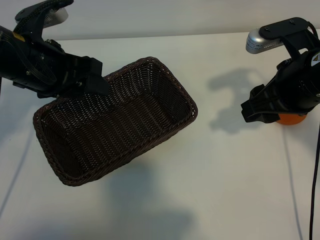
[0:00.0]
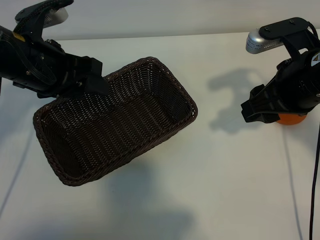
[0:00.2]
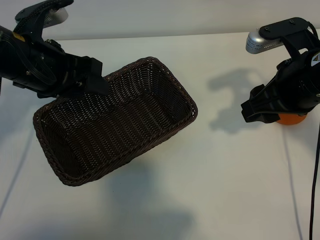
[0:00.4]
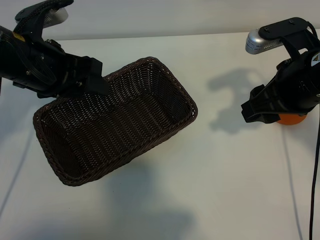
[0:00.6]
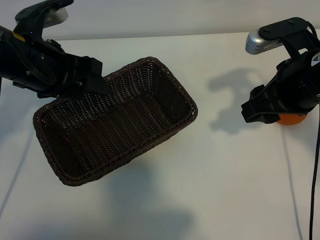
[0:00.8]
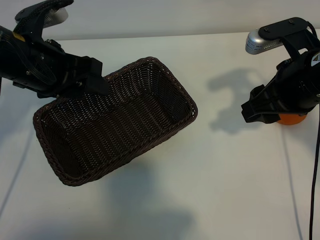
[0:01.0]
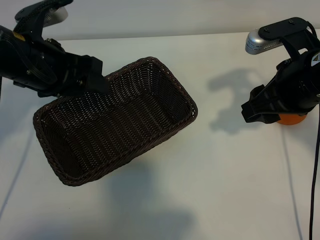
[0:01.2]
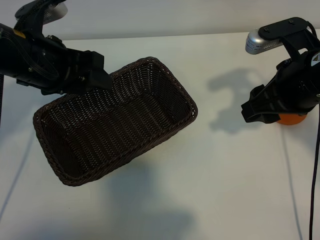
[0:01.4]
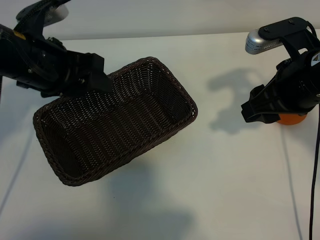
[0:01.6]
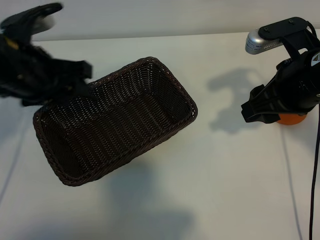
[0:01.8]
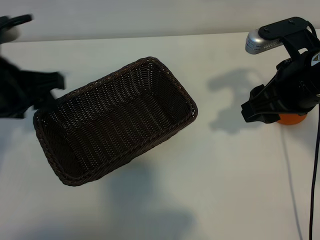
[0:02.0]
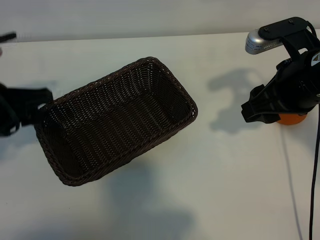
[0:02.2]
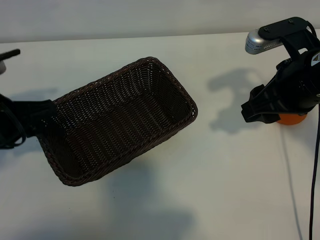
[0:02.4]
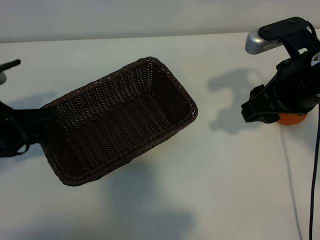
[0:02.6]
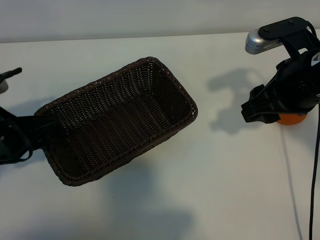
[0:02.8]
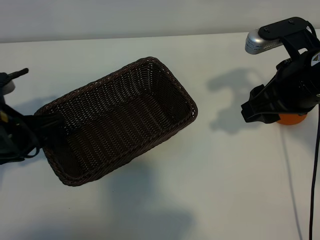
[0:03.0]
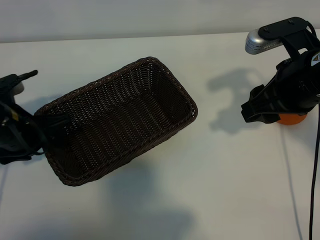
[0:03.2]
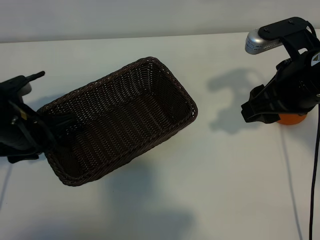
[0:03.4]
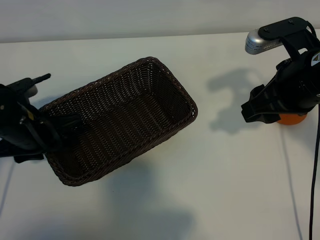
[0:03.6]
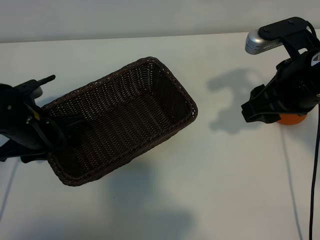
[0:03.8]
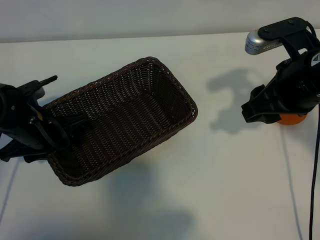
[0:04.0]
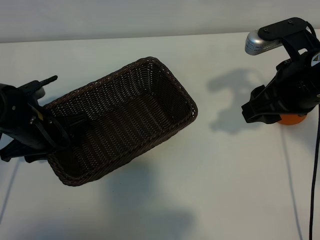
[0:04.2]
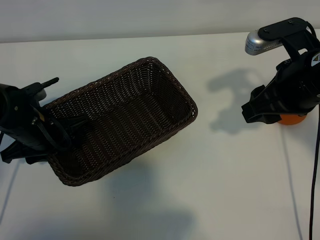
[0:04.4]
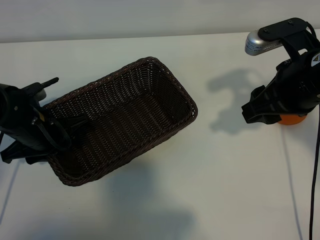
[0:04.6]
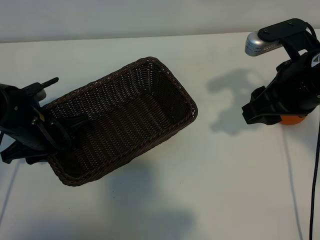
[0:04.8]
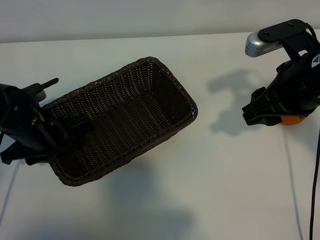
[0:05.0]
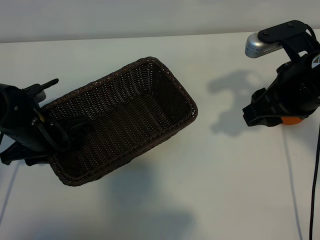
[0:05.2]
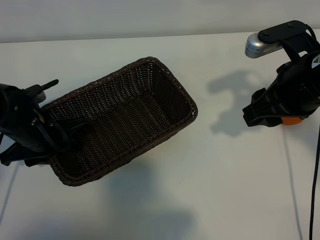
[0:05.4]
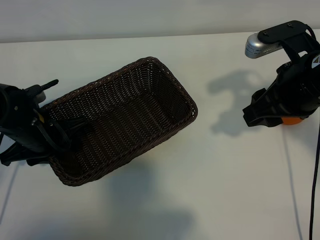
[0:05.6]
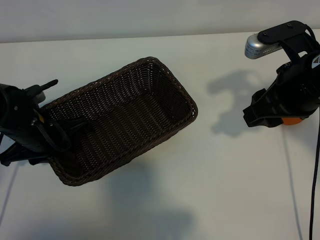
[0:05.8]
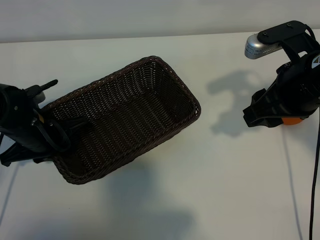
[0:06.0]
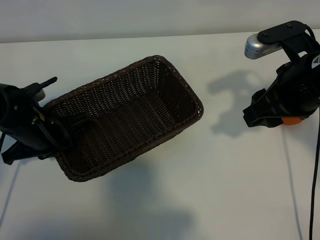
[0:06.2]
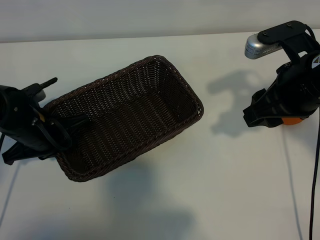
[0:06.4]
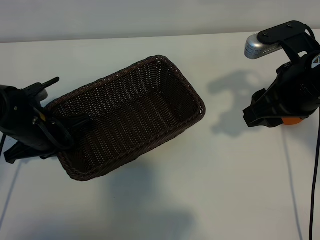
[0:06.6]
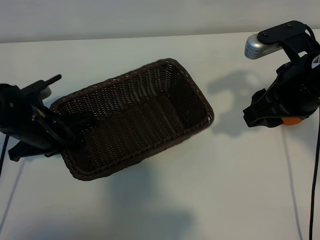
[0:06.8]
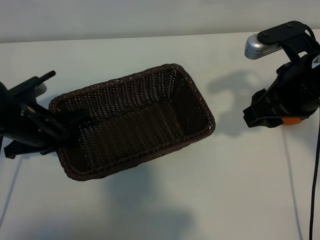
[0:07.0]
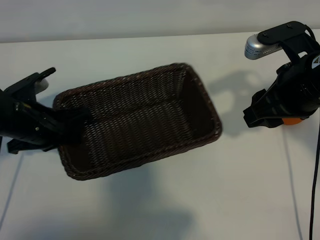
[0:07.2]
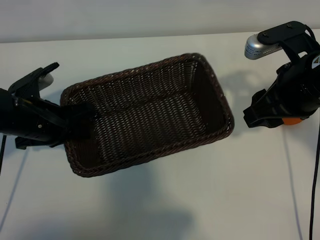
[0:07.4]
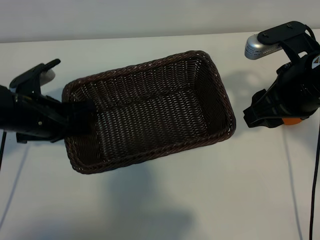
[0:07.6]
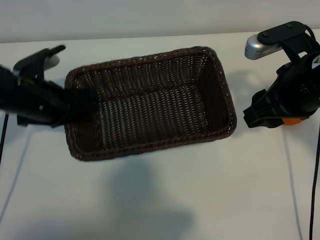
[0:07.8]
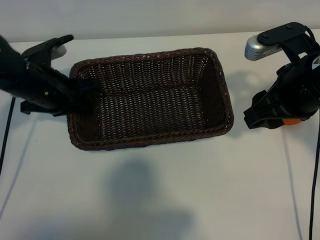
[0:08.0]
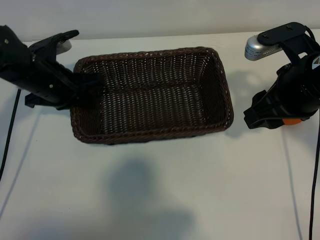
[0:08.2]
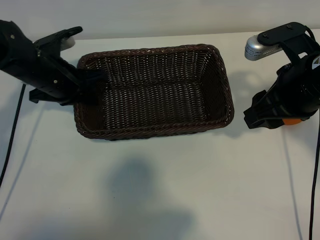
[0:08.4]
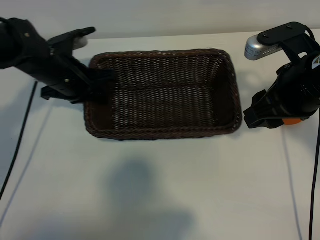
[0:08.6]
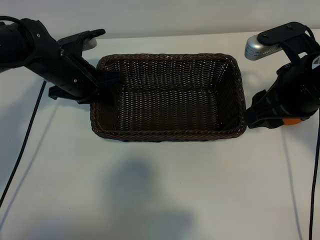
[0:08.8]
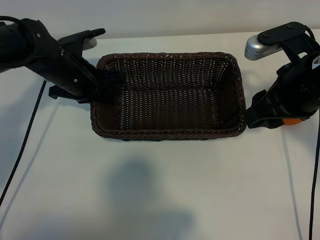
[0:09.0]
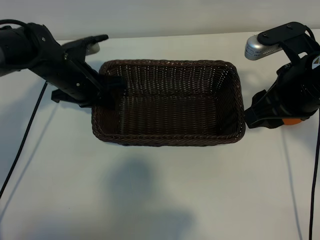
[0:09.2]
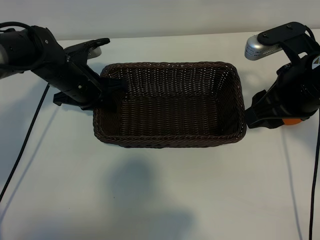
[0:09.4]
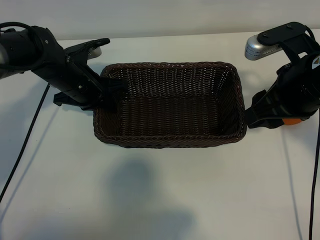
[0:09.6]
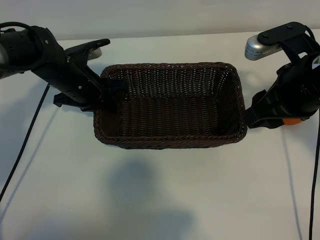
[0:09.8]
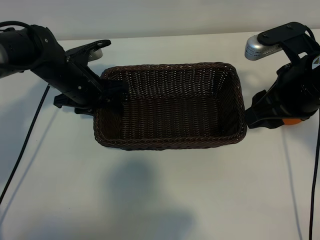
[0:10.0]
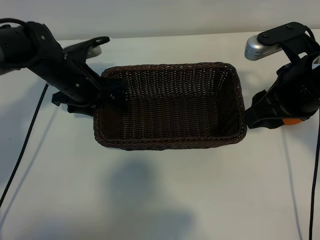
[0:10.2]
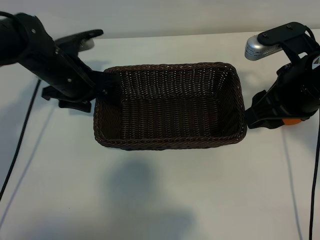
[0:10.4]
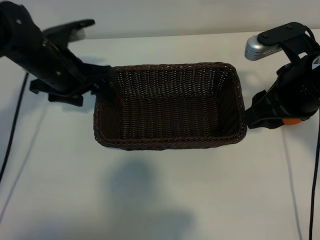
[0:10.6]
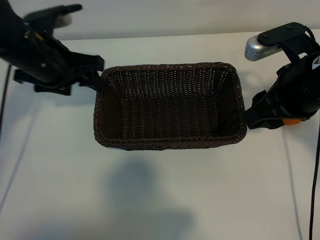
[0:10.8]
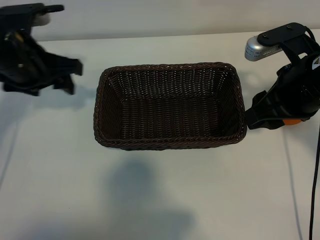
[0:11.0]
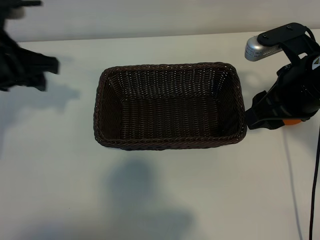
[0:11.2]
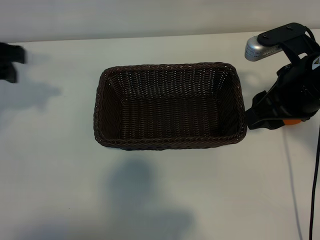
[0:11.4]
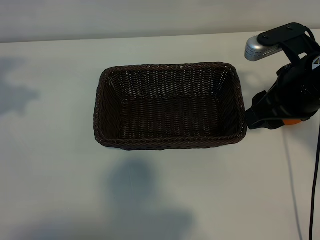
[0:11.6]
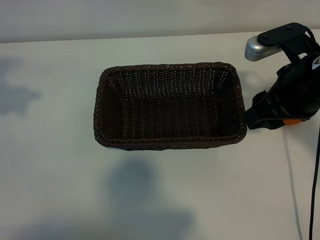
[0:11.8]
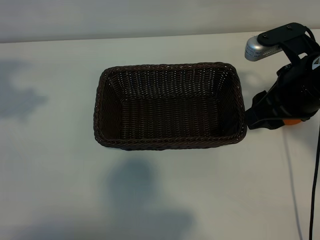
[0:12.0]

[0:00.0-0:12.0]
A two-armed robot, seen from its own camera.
Task of the whole recording: pick up the orange and put it into the basket.
Step, 0:01.2 to 0:06.8: Grasp the basket with left gripper.
Step, 0:07.0 to 0:10.0: Place the basket in the center of view with left gripper.

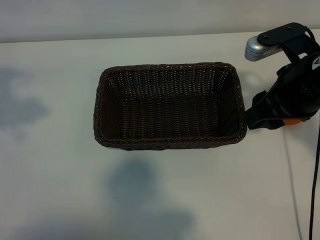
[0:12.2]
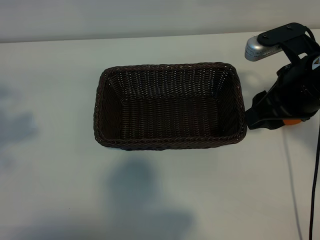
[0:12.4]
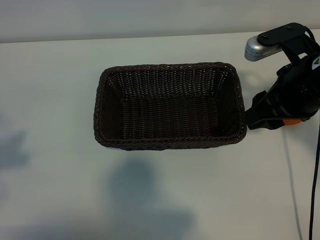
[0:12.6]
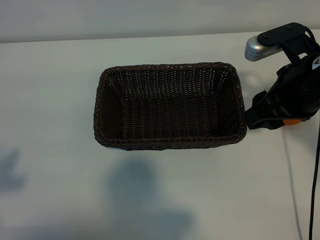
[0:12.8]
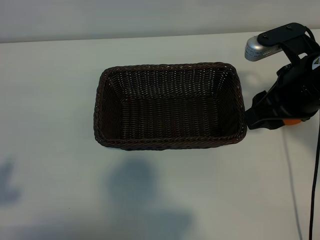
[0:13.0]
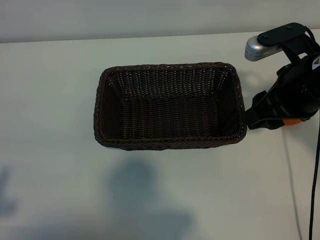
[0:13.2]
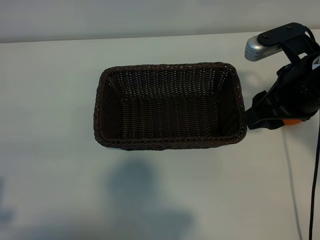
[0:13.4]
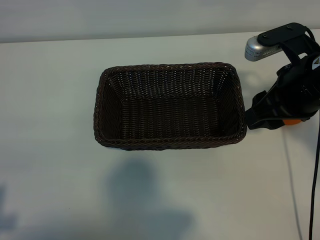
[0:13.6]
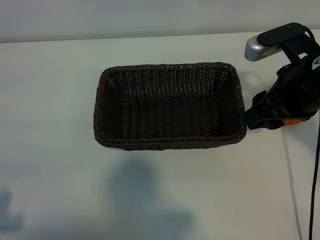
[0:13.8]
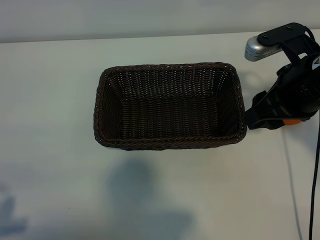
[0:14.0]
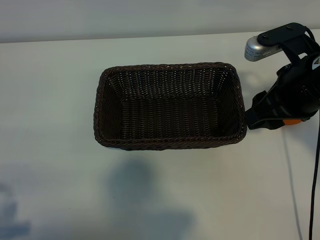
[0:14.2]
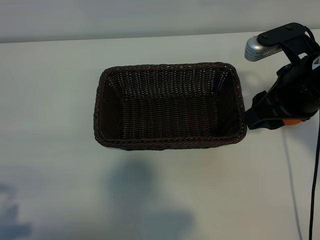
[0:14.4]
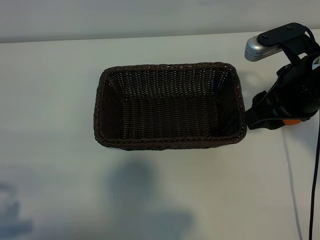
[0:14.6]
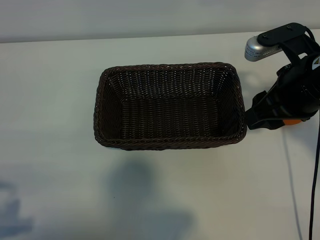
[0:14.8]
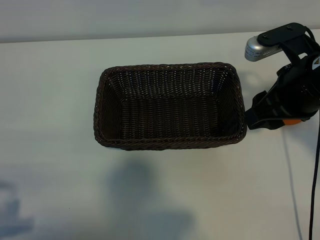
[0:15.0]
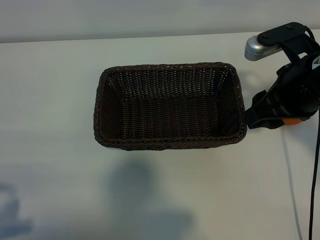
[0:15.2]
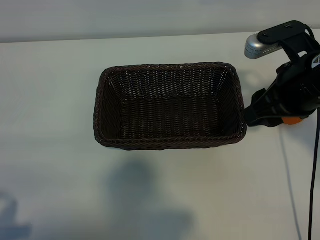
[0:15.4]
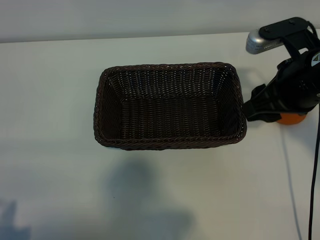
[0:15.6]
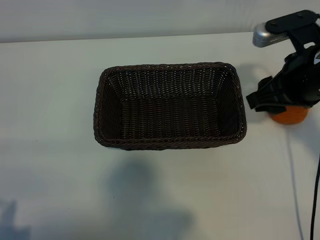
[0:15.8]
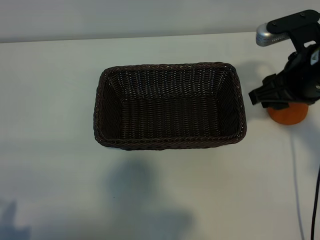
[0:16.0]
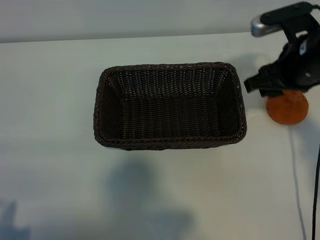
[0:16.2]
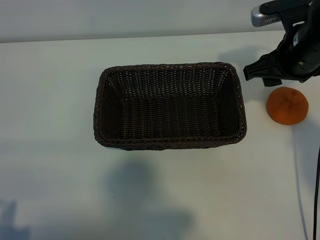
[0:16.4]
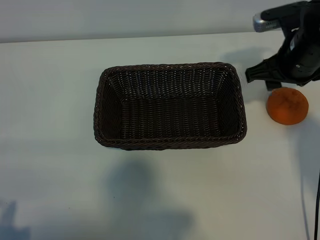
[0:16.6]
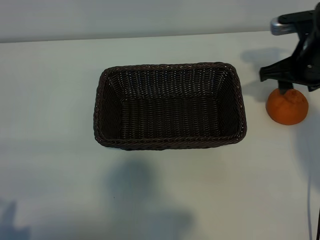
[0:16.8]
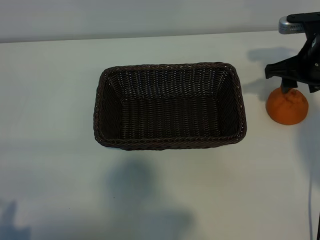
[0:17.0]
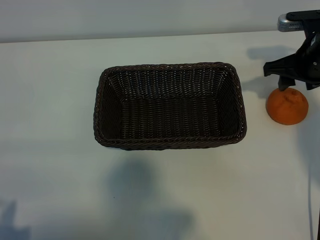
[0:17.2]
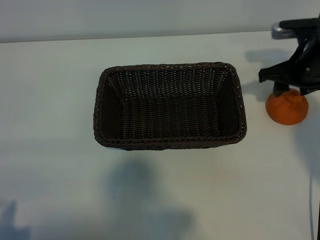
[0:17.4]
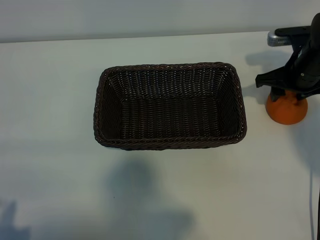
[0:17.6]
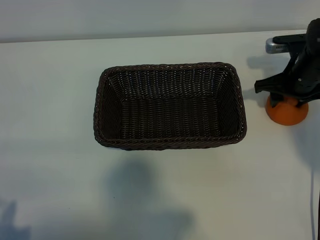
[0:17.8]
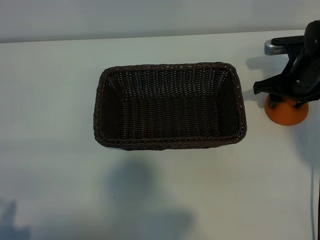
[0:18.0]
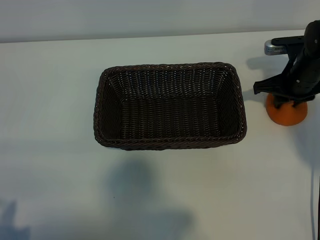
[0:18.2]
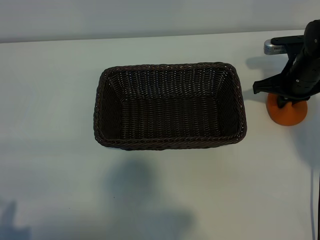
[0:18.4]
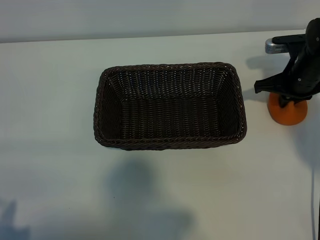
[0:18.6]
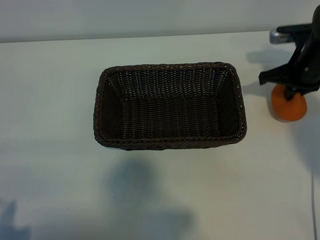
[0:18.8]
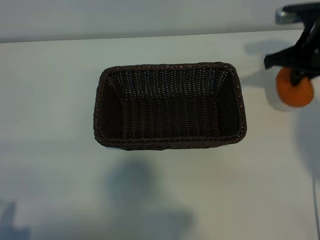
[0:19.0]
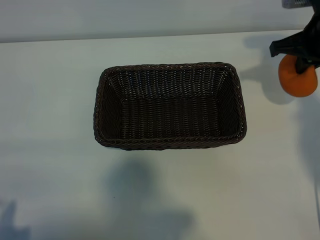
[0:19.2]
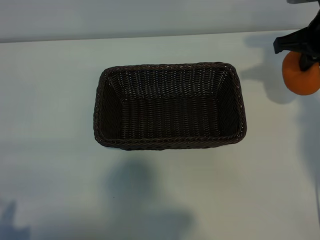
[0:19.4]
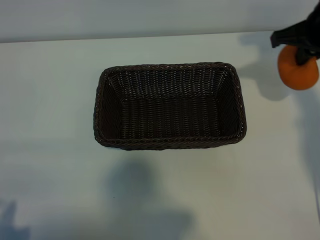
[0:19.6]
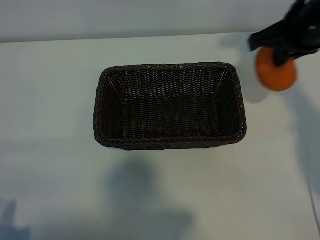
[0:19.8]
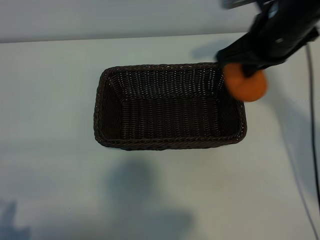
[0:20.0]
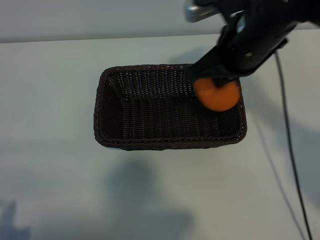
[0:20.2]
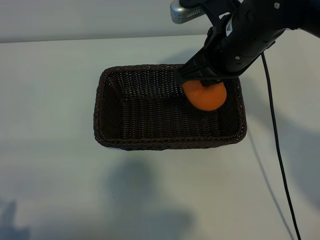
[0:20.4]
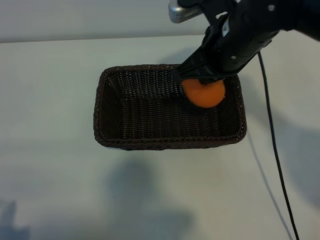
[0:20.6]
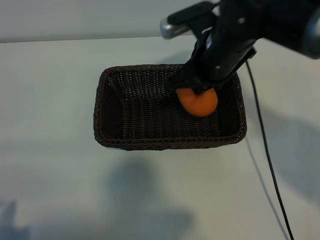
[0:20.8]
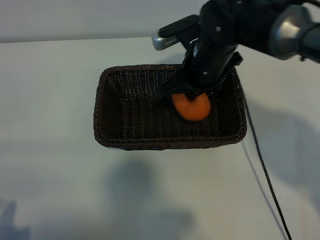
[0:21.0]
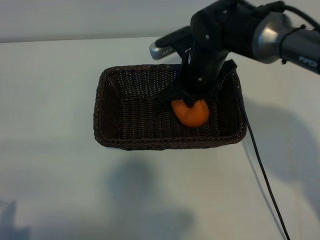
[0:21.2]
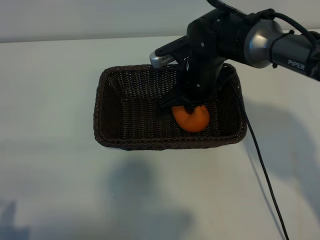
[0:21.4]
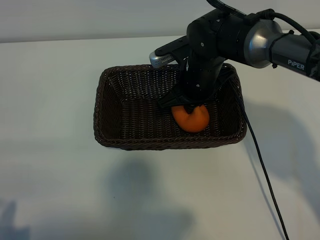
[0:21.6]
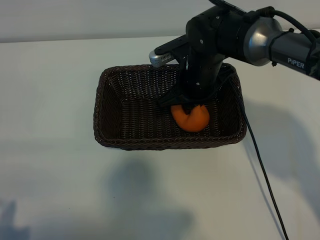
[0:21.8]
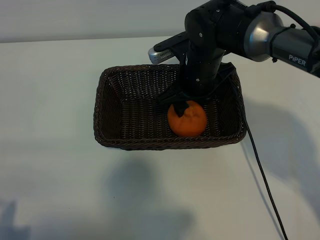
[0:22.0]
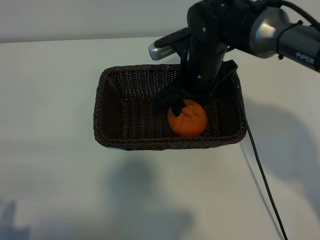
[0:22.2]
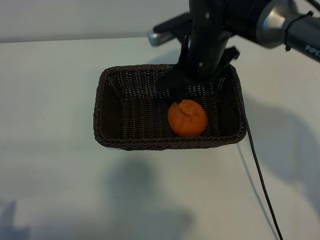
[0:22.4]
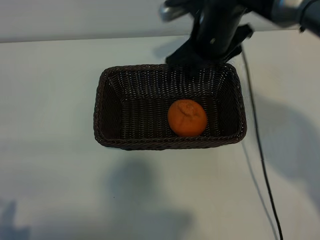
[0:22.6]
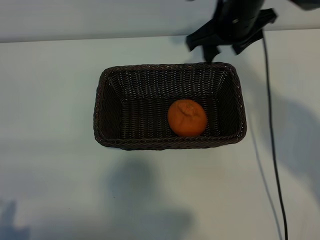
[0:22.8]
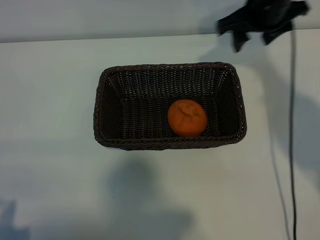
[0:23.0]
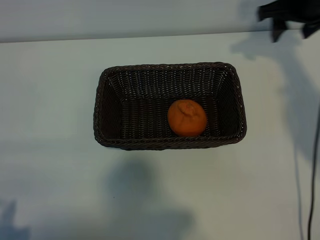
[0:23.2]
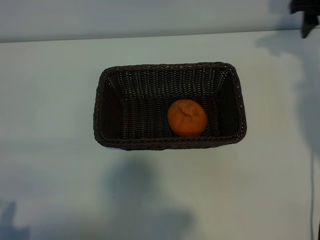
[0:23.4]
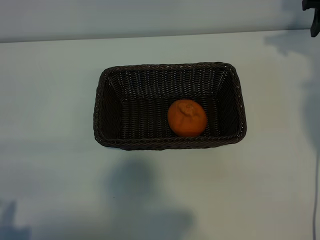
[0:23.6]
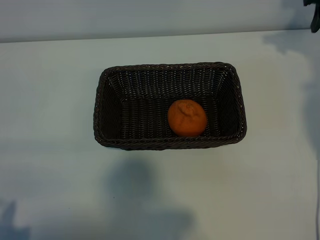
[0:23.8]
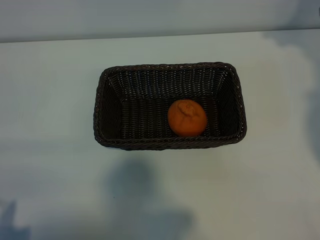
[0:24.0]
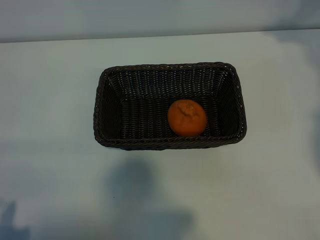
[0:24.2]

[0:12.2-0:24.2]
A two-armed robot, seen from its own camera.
Task of the whole recording: pick up the orange and put it into the basket.
Step, 0:12.2 to 0:18.4: Grasp the orange with right gripper.
Step, 0:18.6 to 0:21.8: Place the orange in the basket with right gripper.
